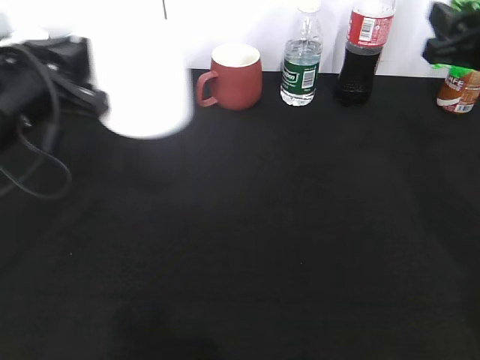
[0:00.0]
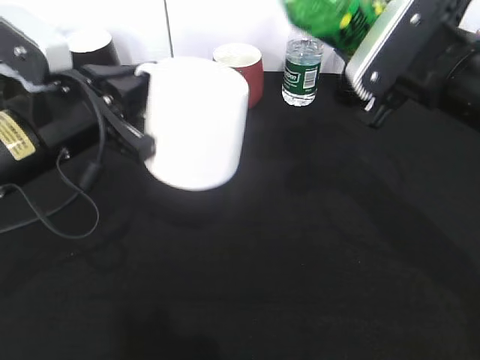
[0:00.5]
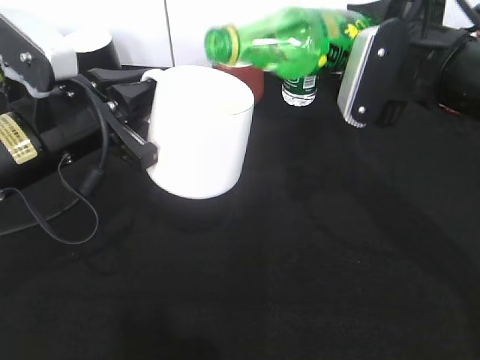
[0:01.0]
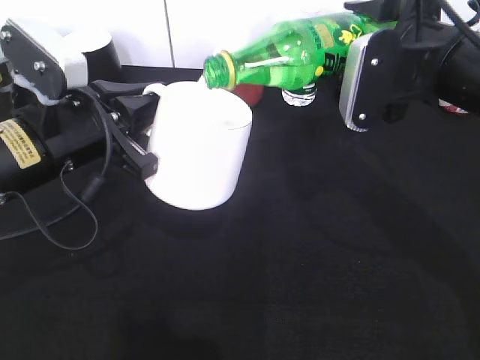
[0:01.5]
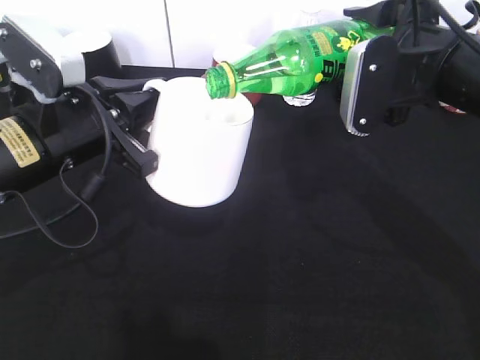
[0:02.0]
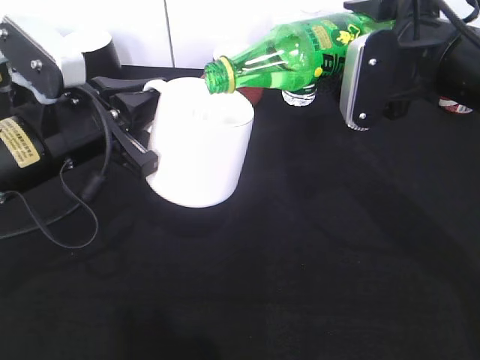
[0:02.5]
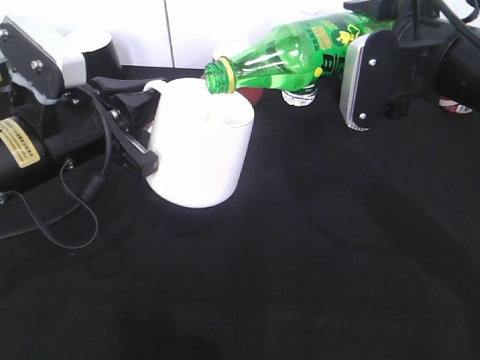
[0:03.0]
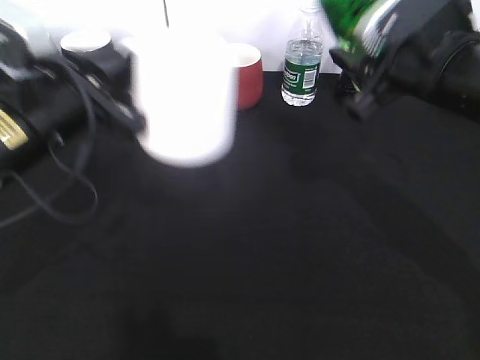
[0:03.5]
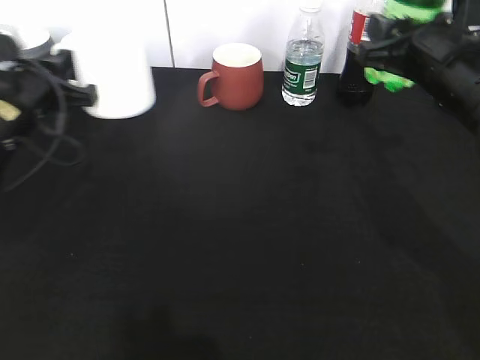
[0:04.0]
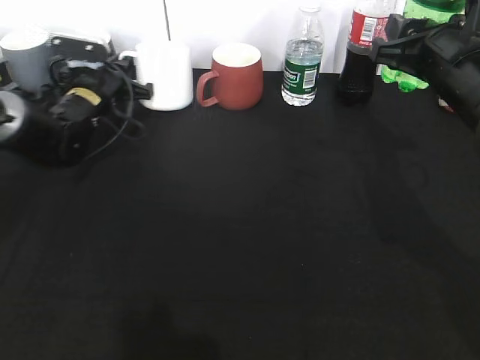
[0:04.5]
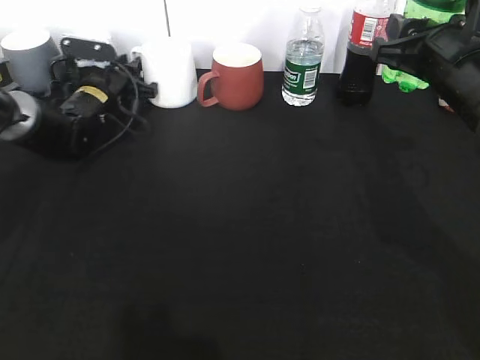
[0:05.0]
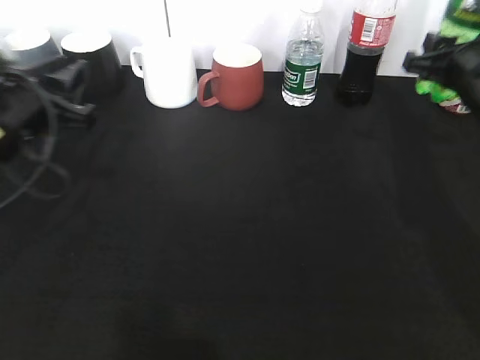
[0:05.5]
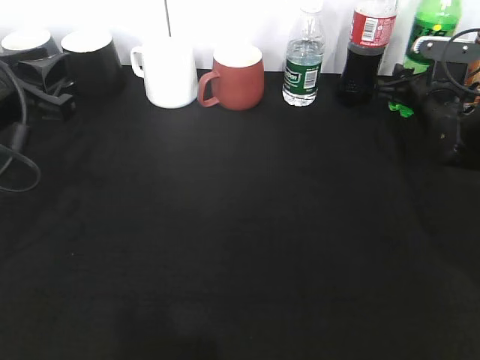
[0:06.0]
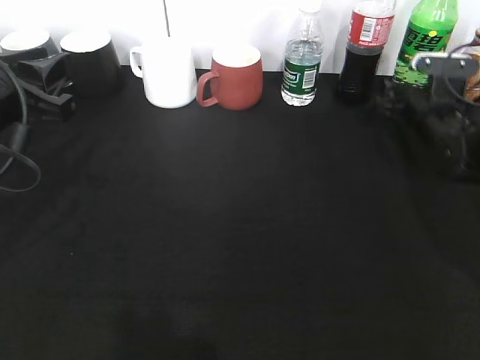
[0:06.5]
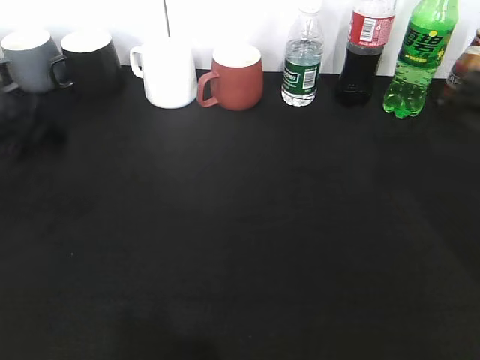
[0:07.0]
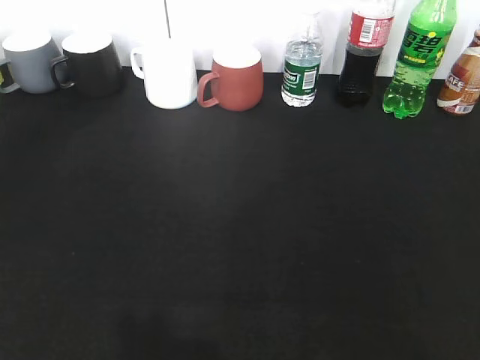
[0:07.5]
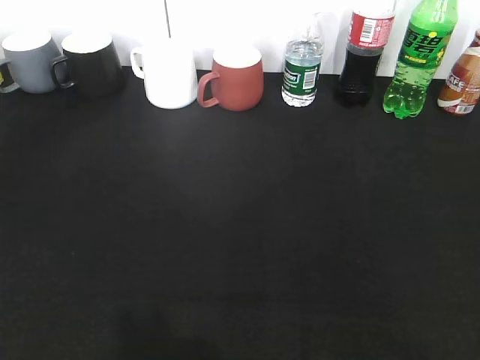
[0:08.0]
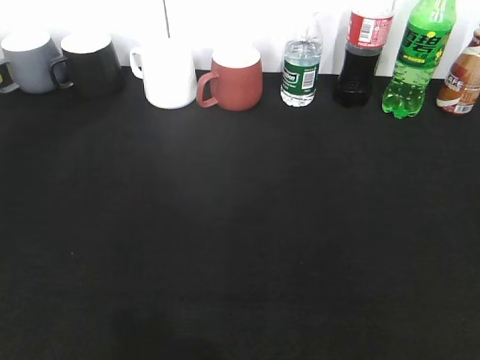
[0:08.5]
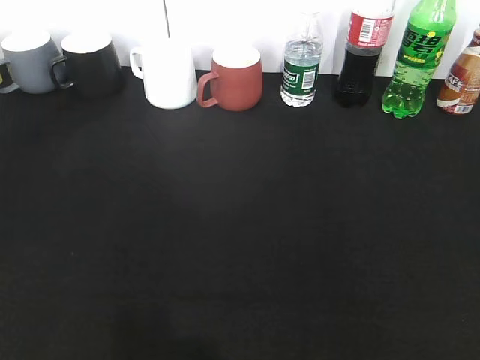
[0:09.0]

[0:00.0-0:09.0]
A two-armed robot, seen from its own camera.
Step, 0:00.0 to 0:03.0: Pour the sprite from bottle to cup with right gripper.
Step, 0:03.5 to 0:06.5: Place the sprite bottle on the table with right gripper.
0:00.0 to 0:02.0: The right gripper goes some 10 cm to the left.
0:02.0 to 0:04.5: The left gripper moves forward and downward, some 25 cm.
0:04.5 to 0:07.0: The right gripper shifts some 5 cm to the right, moves roughly 15 cm forward and comes back, and opens up, while the left gripper heads backward and upward, covering about 30 cm, and opens up.
0:07.0 to 0:09.0: Both grippers move backward, approximately 25 cm.

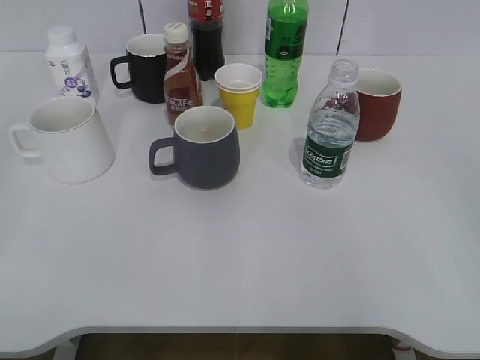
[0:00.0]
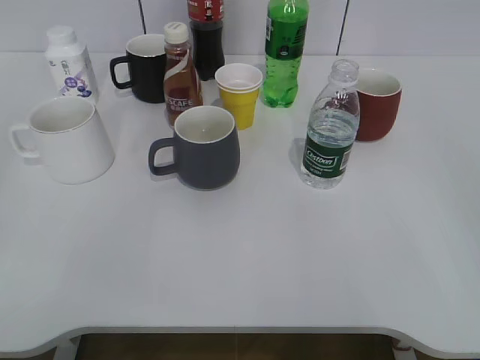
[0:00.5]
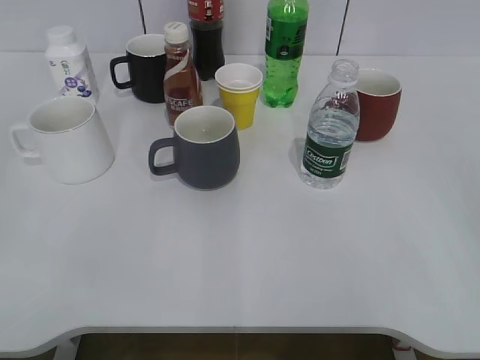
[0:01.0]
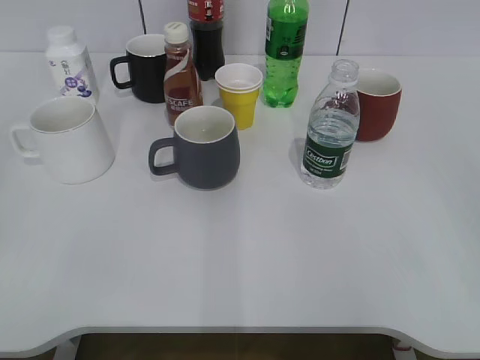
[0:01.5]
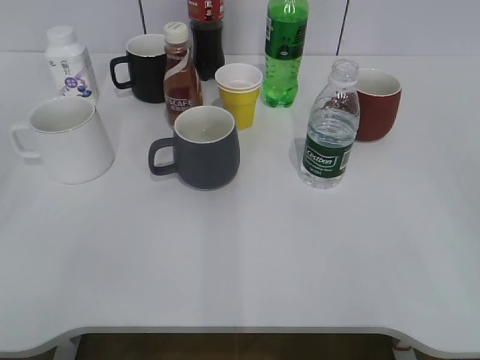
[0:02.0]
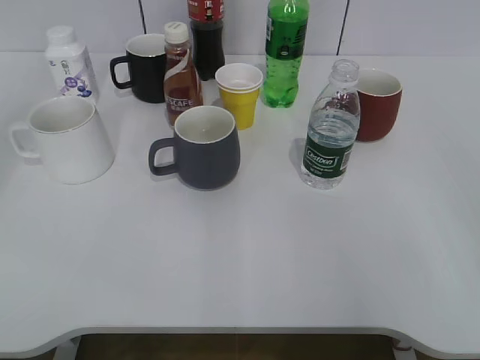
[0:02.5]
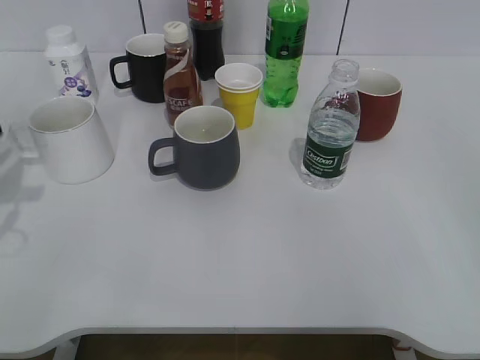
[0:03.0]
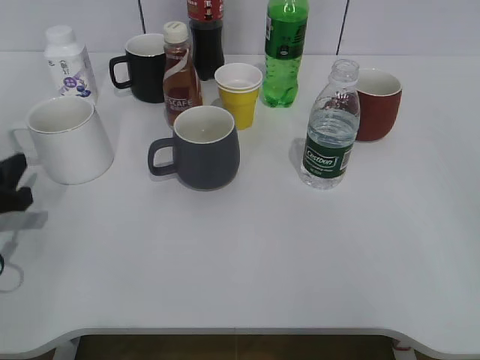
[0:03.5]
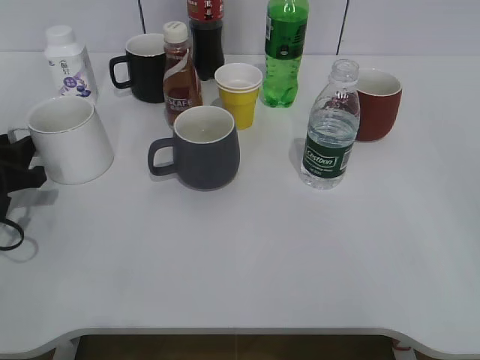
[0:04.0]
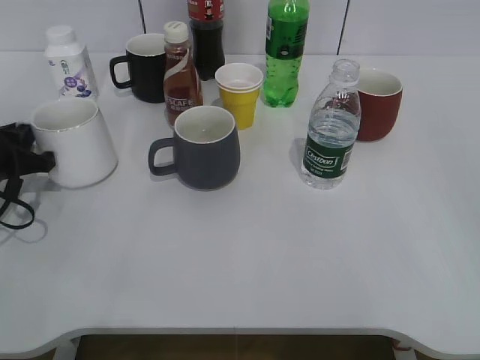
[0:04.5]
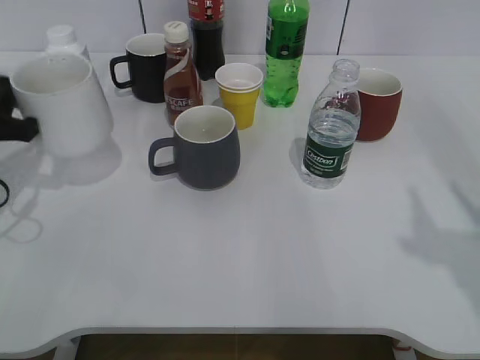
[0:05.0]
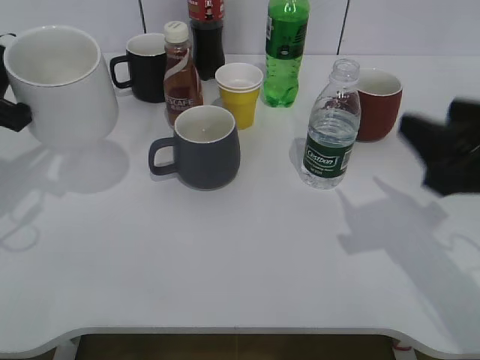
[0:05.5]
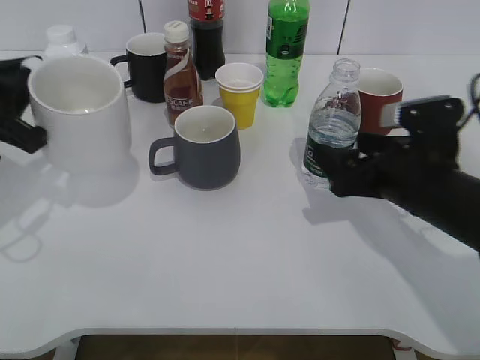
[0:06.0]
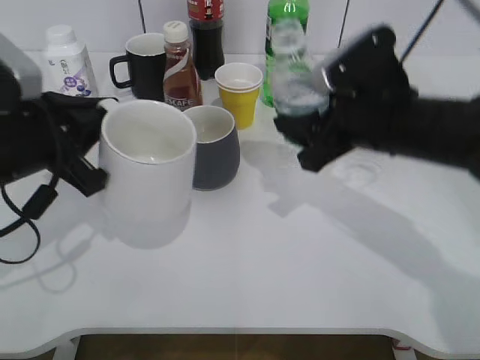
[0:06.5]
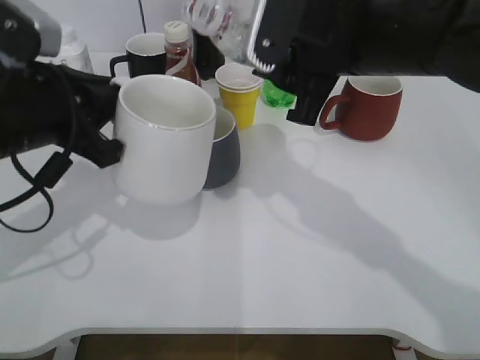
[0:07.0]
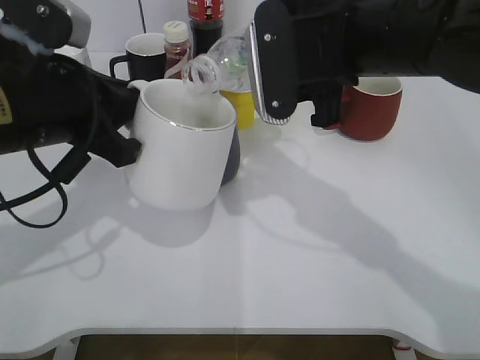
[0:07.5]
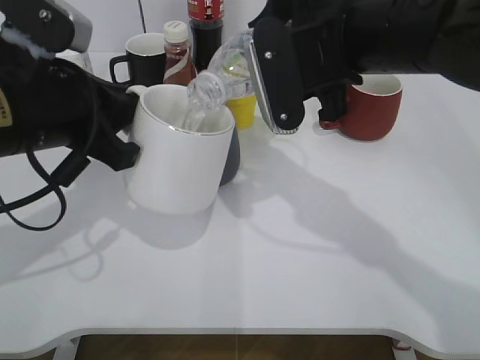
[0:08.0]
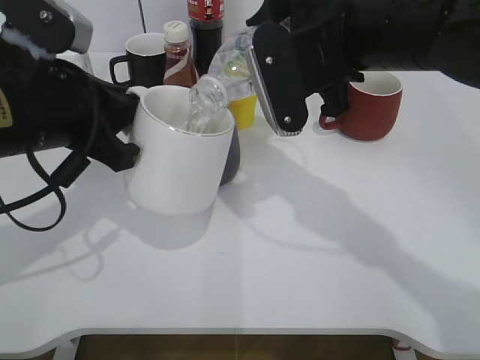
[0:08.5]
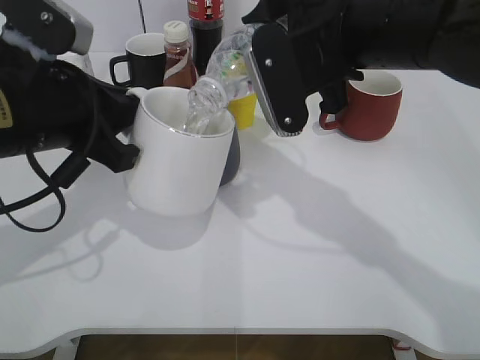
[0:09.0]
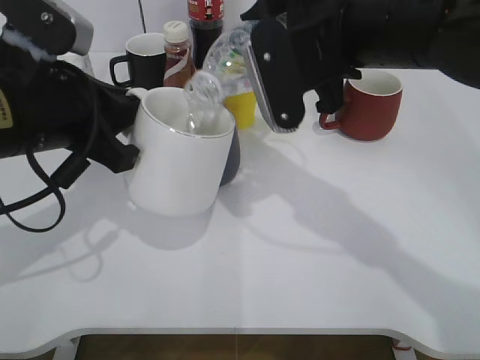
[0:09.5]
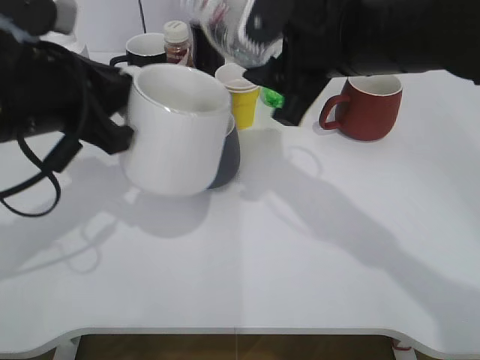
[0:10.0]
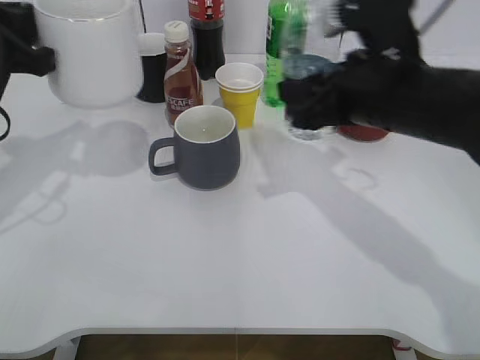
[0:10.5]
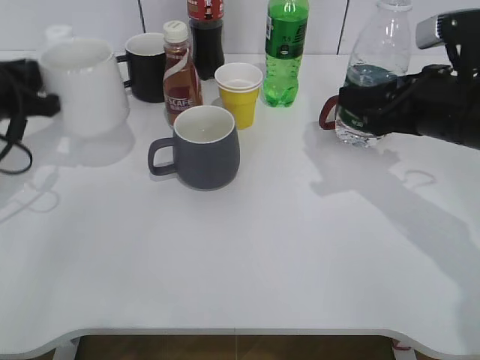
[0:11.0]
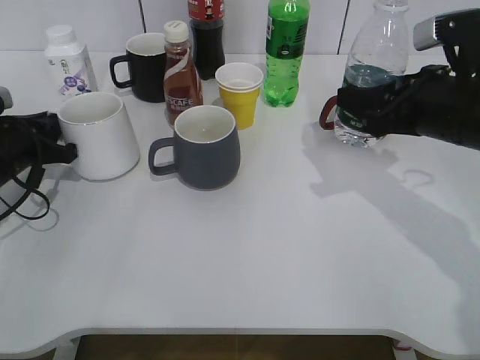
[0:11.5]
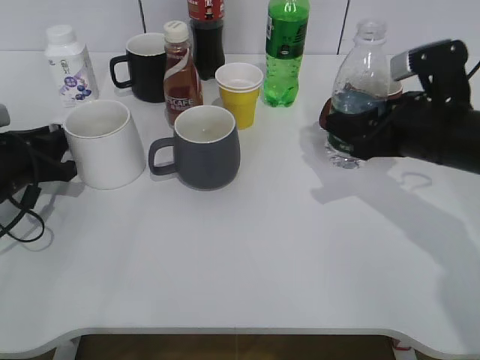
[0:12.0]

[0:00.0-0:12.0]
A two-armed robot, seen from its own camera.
Step, 0:02.0 to 0:04.0: Grasp the white cup with left gripper.
Step, 0:04.5 to 0:05.0: Lift the white cup with left gripper.
Step, 0:05.5 to 0:06.0: Grasp the bottle with water with right gripper.
Step, 0:06.5 to 0:09.5: Pour the water from bottle to cup with right gripper.
0:02.0 to 0:04.0: The left gripper is displaced forward and downward by about 35 cm.
0:04.0 to 0:06.0: The right gripper heads forward, downward and to the left, covering some 30 cm, and opens up; the left gripper travels upward by roughly 10 cm, and closes up.
0:06.0 to 0:08.0: The left gripper goes some 10 cm to the right. Meanwhile the right gripper heads upward and to the left, covering about 20 cm, and closes up.
0:10.0 to 0:12.0: The right gripper is displaced to the right and downward by approximately 15 cm. The left gripper is displaced downward, to the left and forward by some 20 cm.

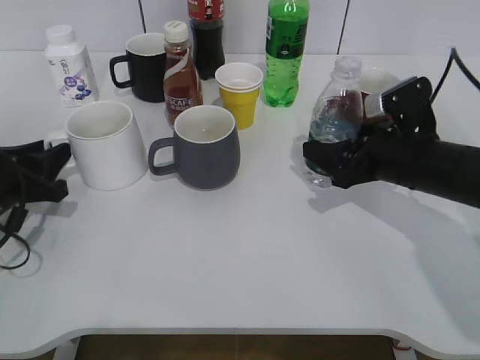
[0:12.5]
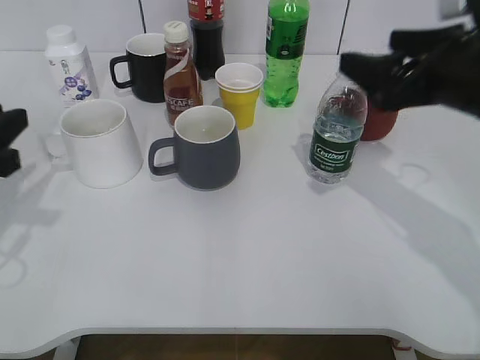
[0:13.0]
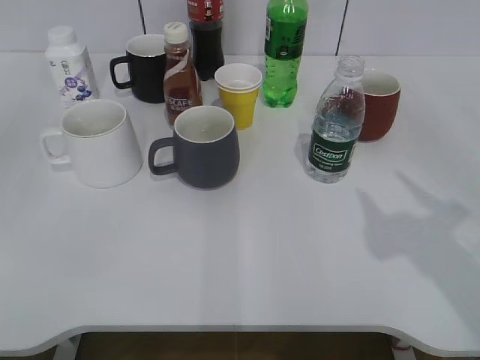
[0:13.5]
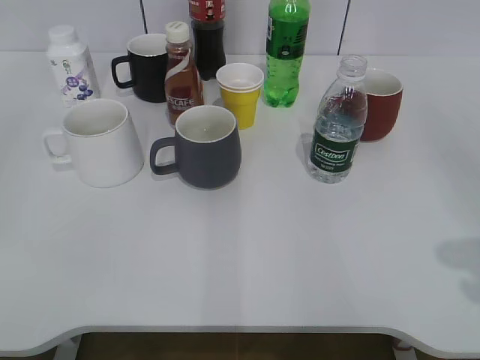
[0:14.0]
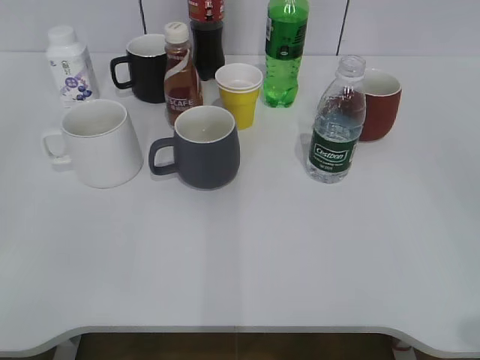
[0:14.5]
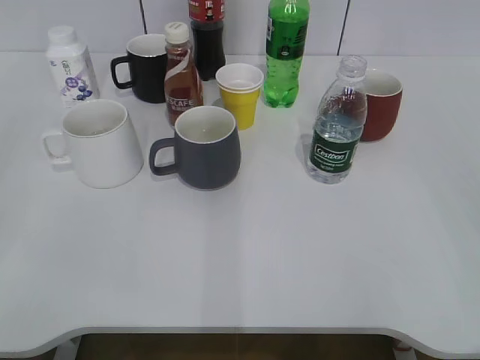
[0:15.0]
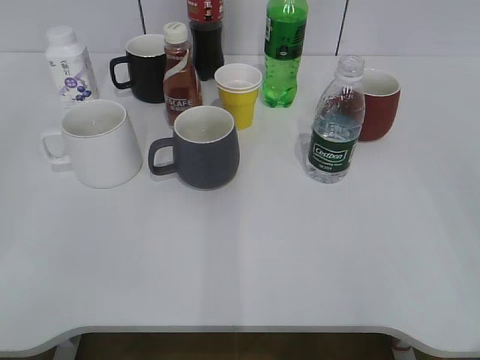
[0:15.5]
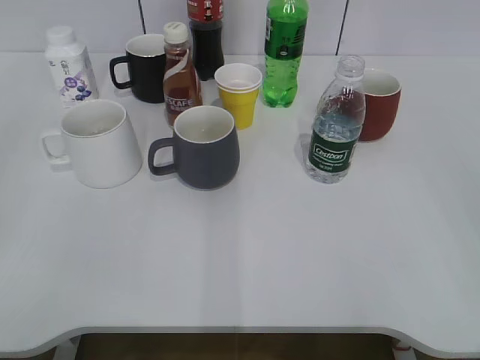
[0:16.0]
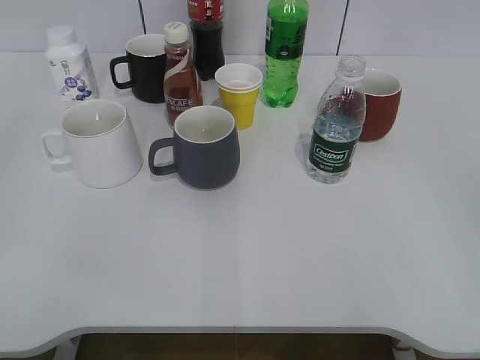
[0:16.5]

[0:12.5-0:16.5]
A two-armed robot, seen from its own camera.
0:12.5 to 0:14.5: The grippers both shift backward and upward by approximately 35 cm. The right gripper opens, then closes again; the left gripper opens its fingers.
